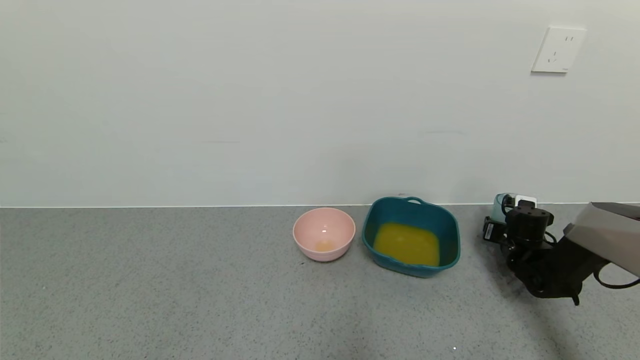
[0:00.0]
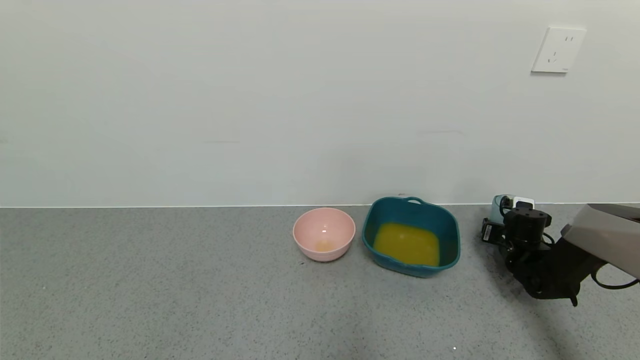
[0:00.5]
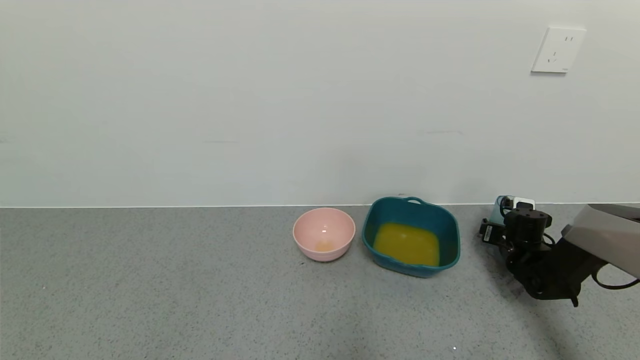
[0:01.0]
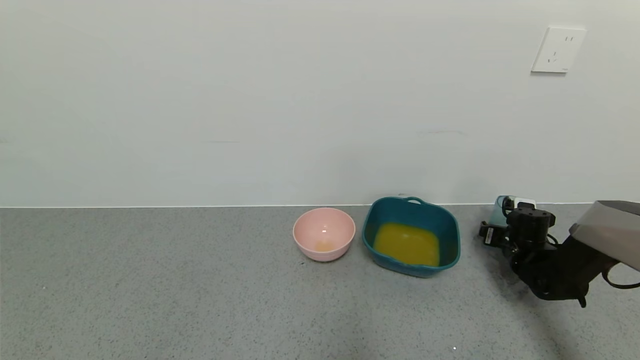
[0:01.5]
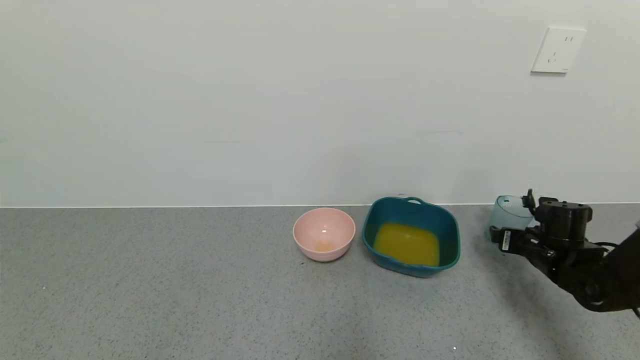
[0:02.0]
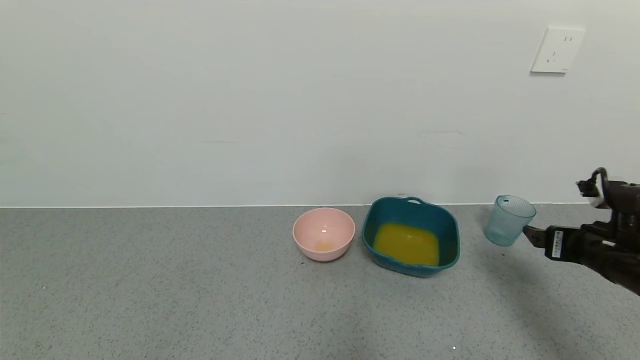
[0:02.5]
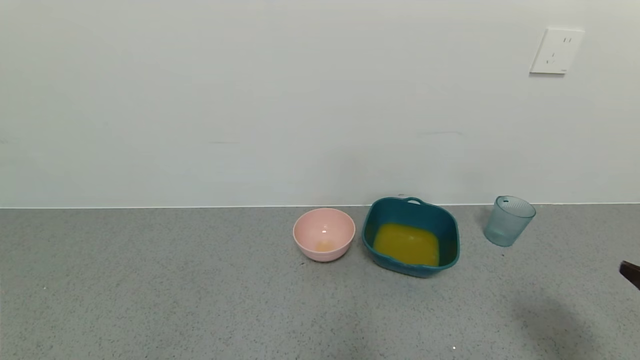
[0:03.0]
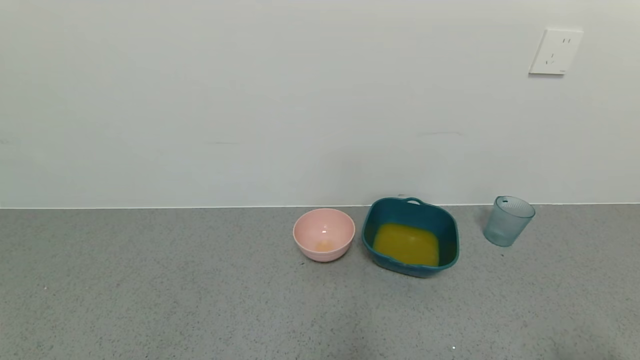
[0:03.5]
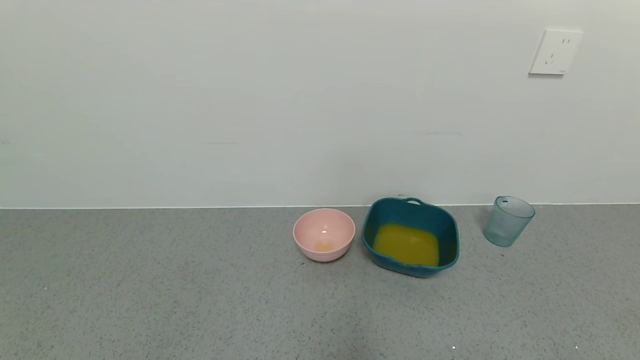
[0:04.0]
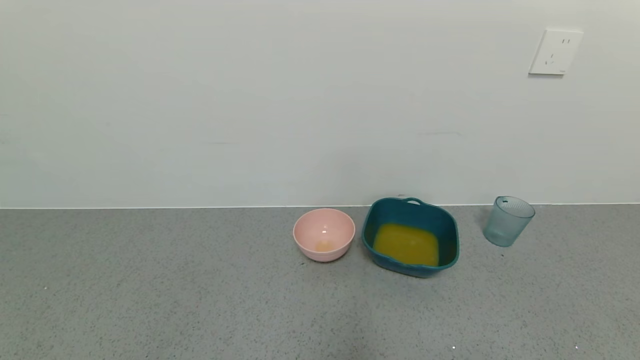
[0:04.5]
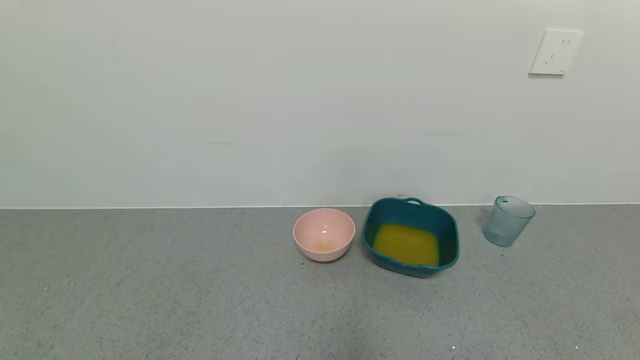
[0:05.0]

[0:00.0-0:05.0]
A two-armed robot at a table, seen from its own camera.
Task of the whole recording: use a gripper to pick up the cup and pour the liquid into a bowl or tray.
Step, 0:00.0 to 0:02.0: Place the glass cup with the right gripper.
0:00.0 to 0:02.5: The right gripper moves backward and upward, approximately 25 cm, and opens up.
0:02.5 to 0:05.0: The right gripper travels backward by approximately 25 cm.
